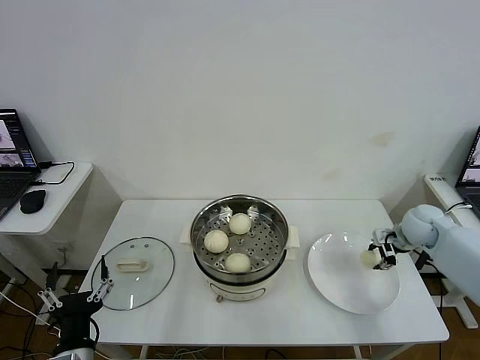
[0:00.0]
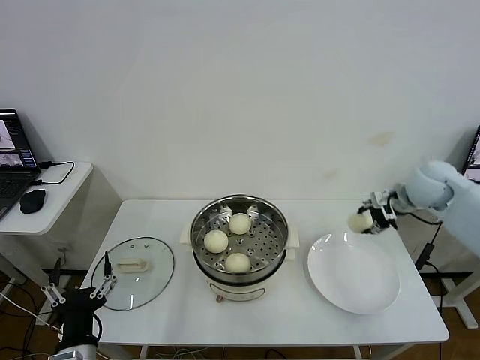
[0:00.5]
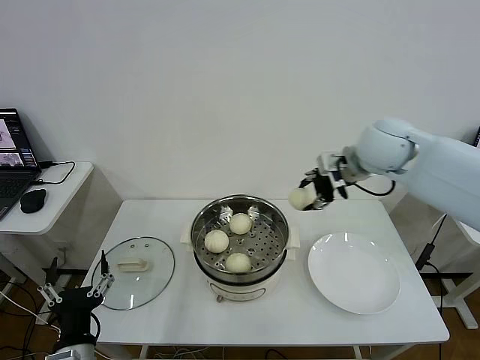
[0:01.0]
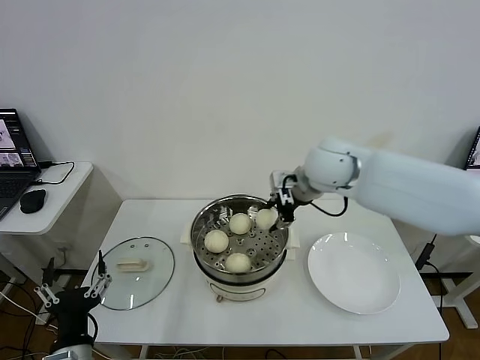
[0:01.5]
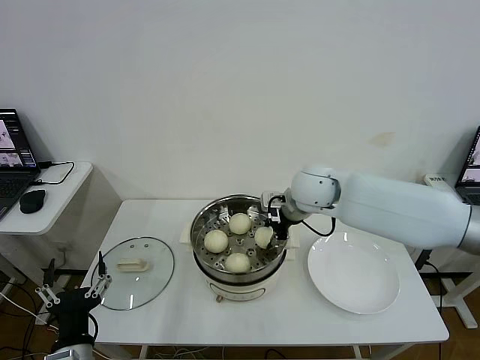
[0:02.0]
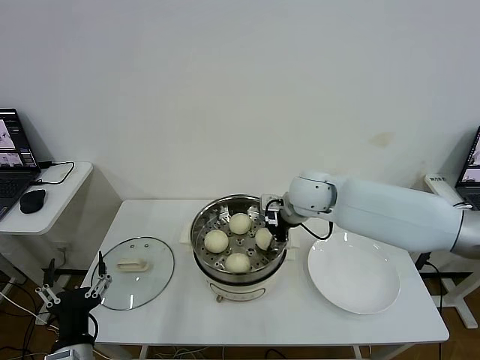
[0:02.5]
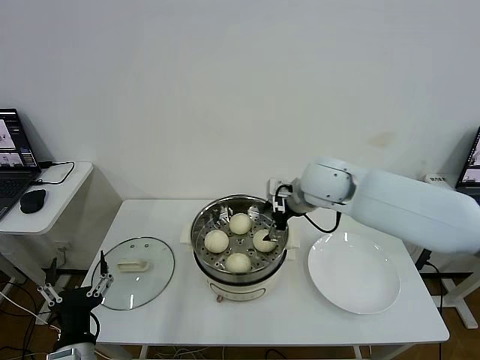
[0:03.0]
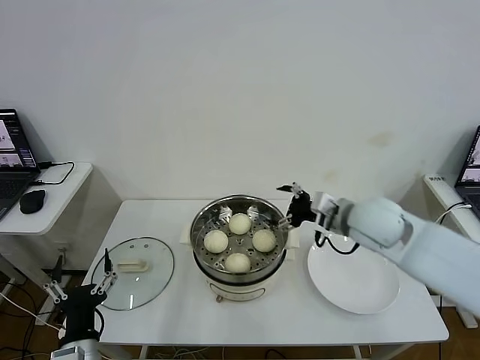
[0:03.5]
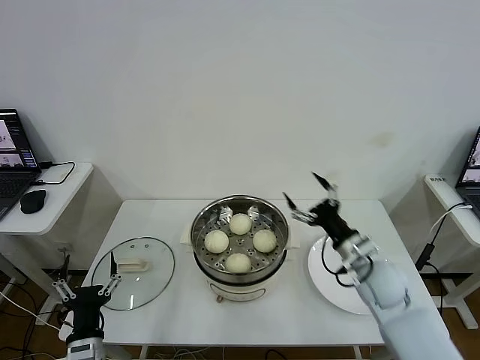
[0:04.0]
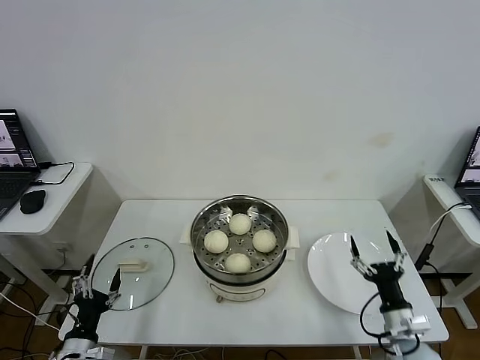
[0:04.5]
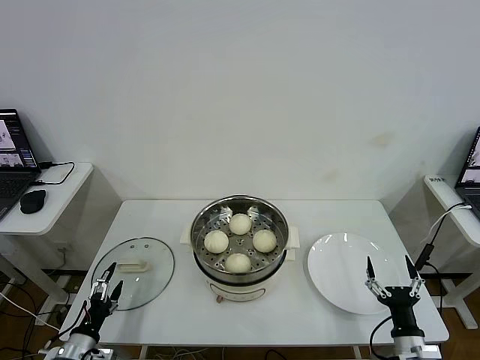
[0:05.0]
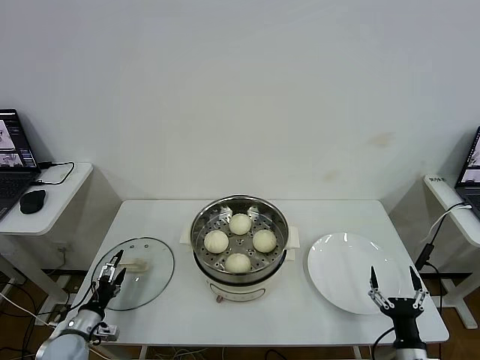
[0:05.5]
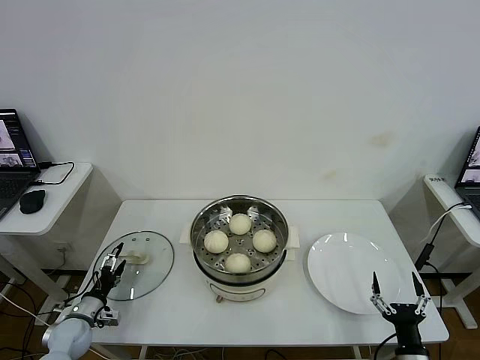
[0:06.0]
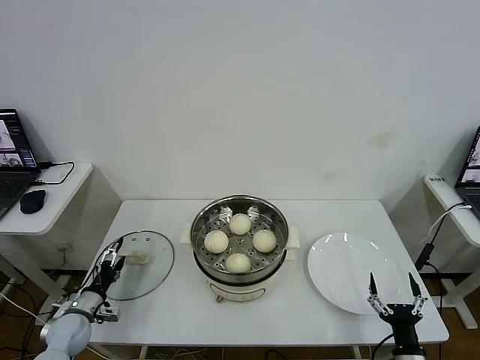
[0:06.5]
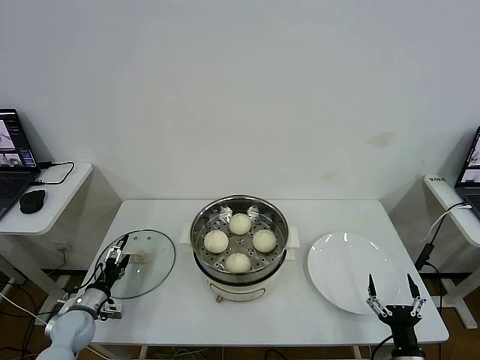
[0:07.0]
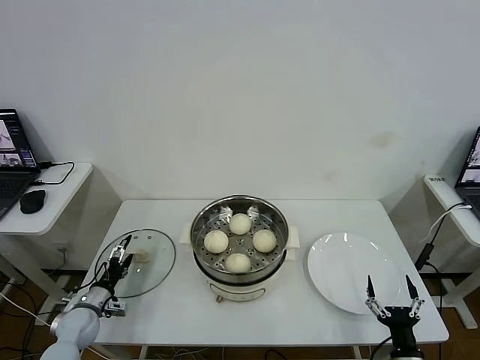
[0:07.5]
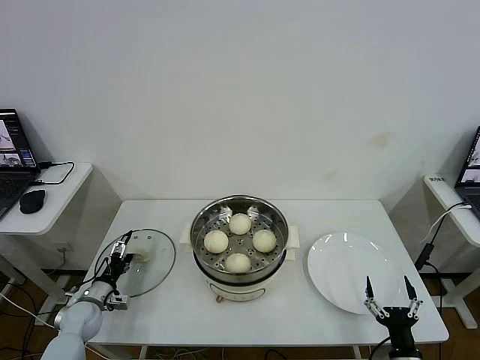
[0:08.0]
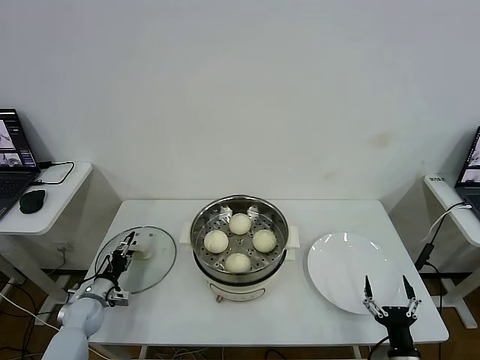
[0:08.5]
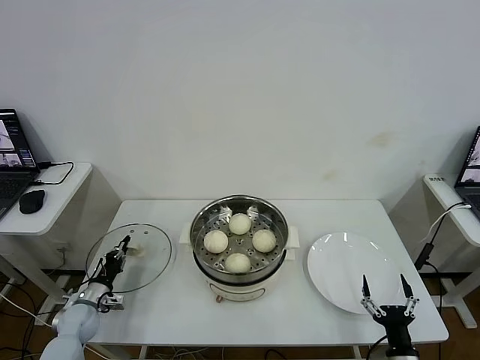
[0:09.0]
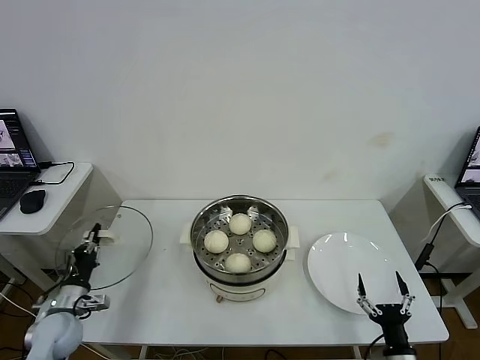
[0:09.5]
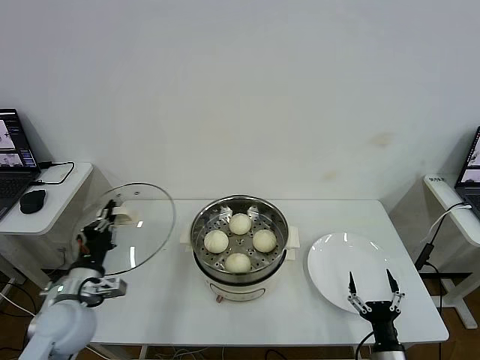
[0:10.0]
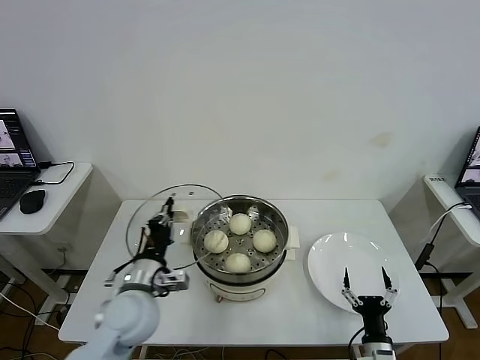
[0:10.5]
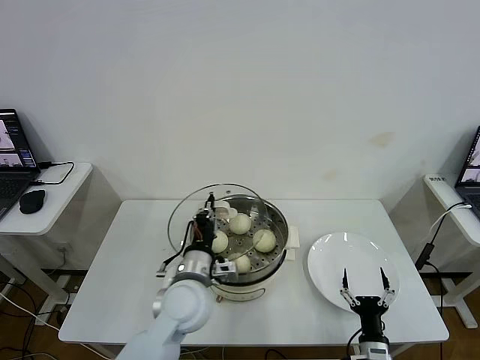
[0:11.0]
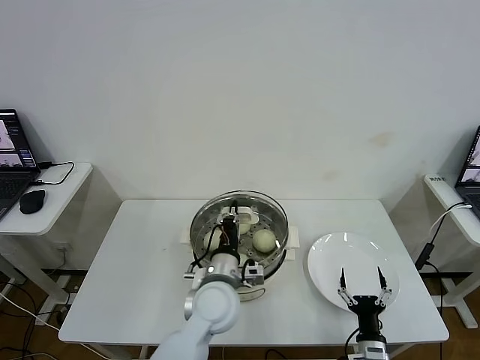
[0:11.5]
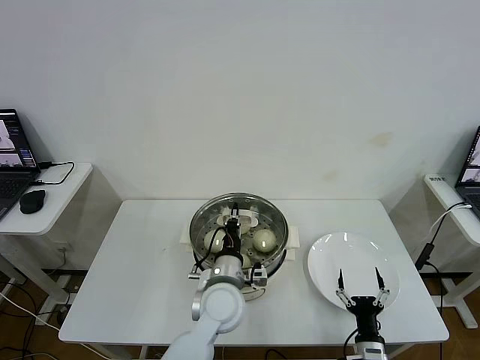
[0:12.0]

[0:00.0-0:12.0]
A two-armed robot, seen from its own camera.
Step, 0:00.0 to 0:02.5: Place the baozi on the steamer with right gripper.
Step, 0:03.0 to 0:09.0: Grasp the pot lid with left gripper.
0:00.0 to 0:02.0: The right gripper is displaced to the left and upward by roughly 30 cm.
0:02.0 to 0:04.0: The left gripper moves downward, approximately 5 cm. Meanwhile the right gripper heads to the right, downward and backward, covering approximately 25 cm, and opens its fingers.
0:04.0 to 0:06.0: The left gripper travels to the left, forward and downward by approximately 25 cm. The right gripper shifts roughly 25 cm backward and downward.
0:06.0 to 0:08.0: The grippers make only small movements.
0:08.0 to 0:10.0: The left gripper shifts roughly 20 cm upward and to the right, and closes up.
0:10.0 to 0:12.0: The left gripper is displaced to the right by roughly 30 cm. Meanwhile the right gripper ends up about 5 cm from where it was.

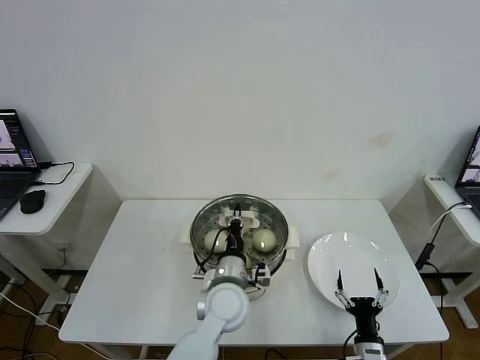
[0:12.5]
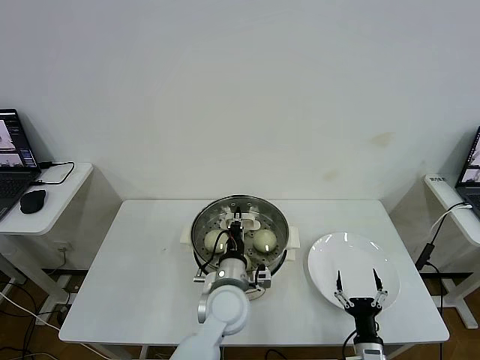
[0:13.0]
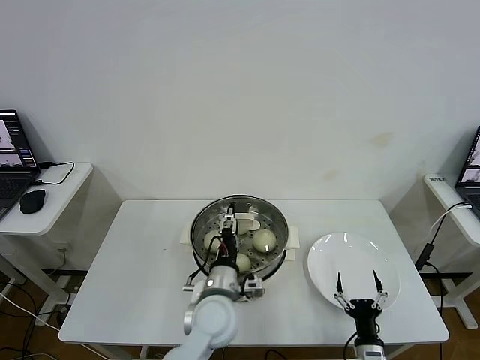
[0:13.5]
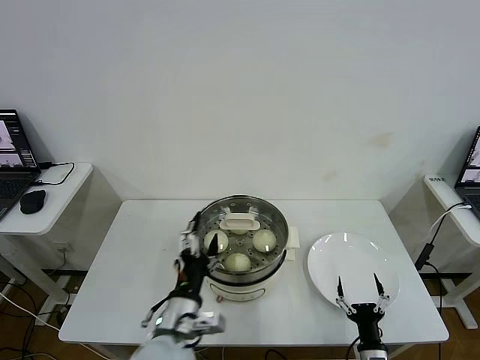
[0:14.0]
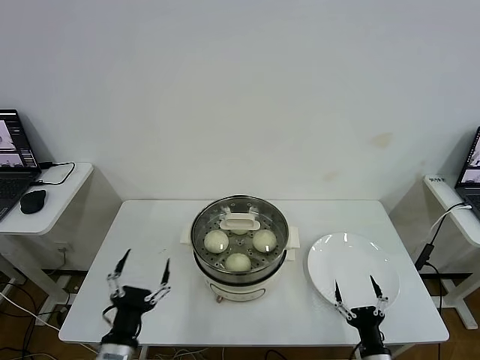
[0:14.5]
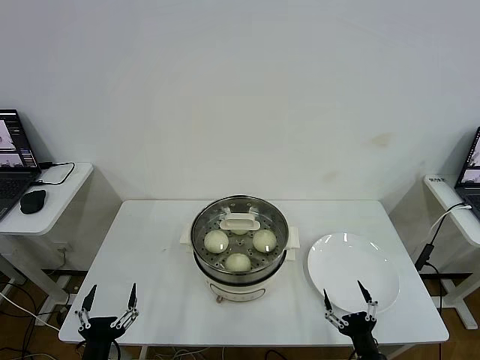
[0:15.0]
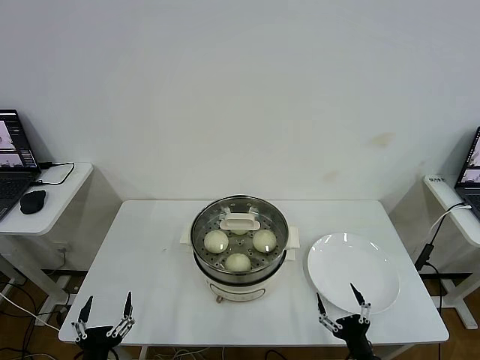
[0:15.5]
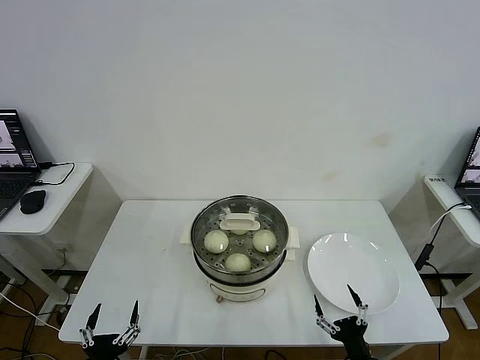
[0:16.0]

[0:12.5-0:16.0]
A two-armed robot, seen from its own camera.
0:12.5 to 0:14.5: The left gripper heads to the left and backward, covering roughly 25 cm, and opens up.
0:14.5 to 0:16.0: The left gripper heads downward, backward and to the left, covering approximately 10 cm.
